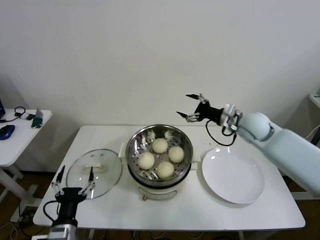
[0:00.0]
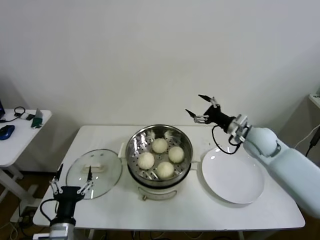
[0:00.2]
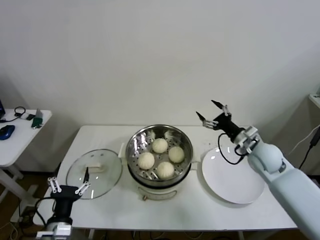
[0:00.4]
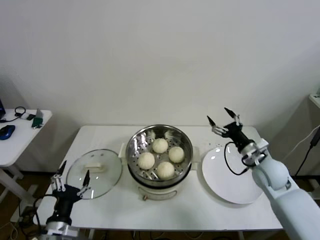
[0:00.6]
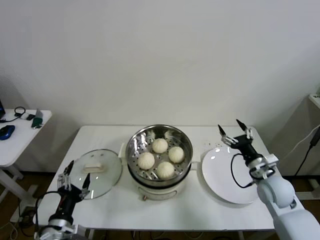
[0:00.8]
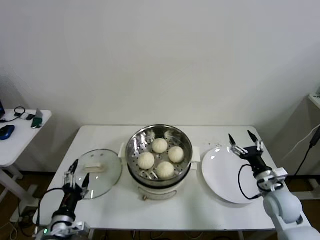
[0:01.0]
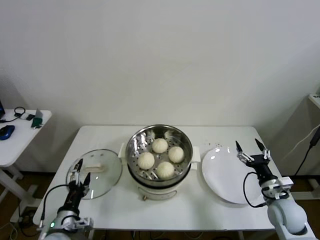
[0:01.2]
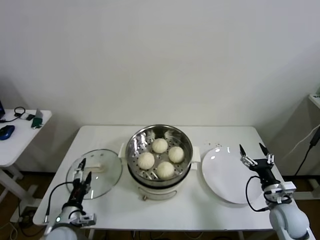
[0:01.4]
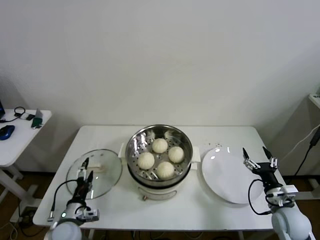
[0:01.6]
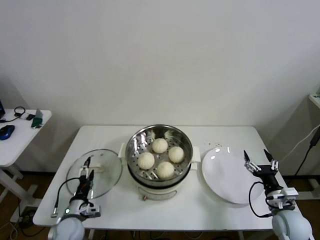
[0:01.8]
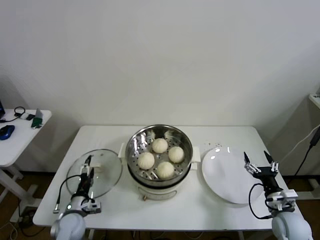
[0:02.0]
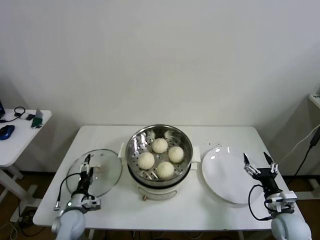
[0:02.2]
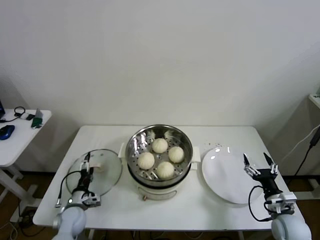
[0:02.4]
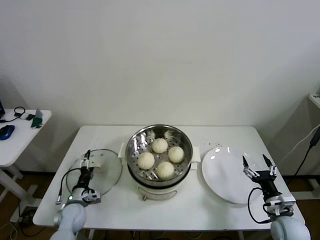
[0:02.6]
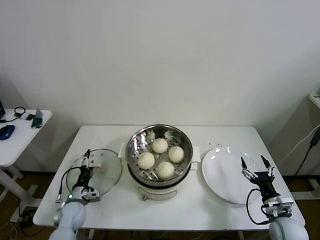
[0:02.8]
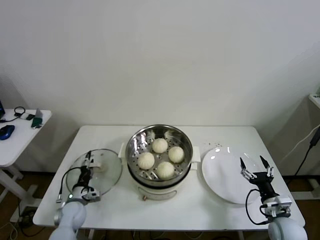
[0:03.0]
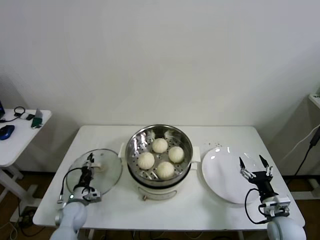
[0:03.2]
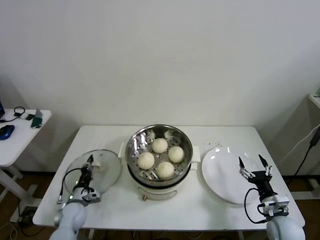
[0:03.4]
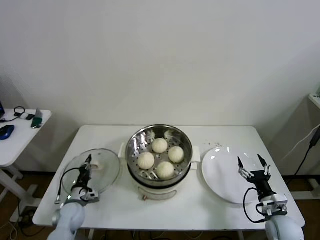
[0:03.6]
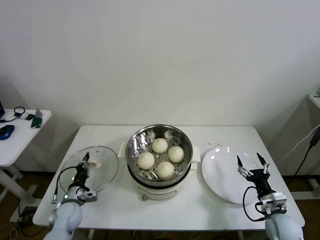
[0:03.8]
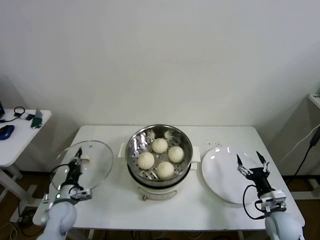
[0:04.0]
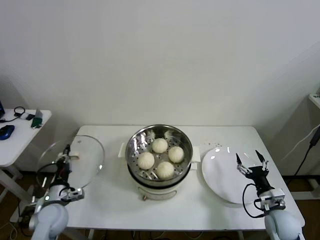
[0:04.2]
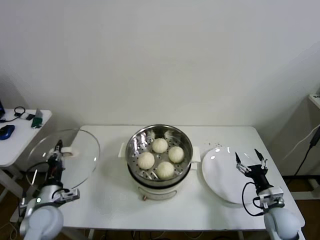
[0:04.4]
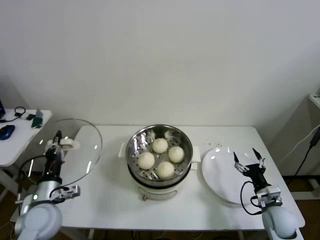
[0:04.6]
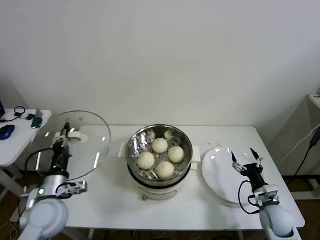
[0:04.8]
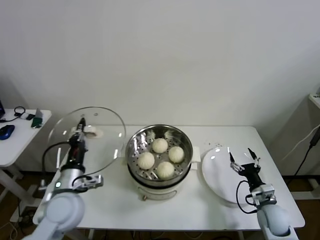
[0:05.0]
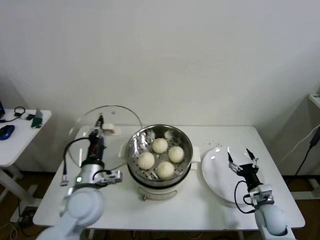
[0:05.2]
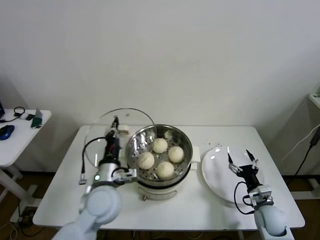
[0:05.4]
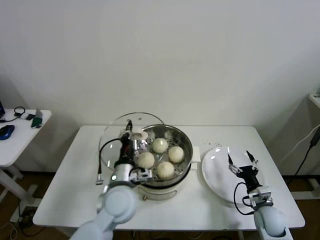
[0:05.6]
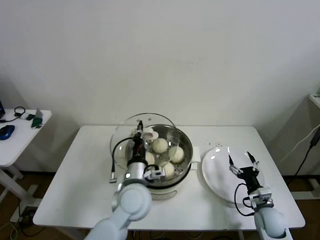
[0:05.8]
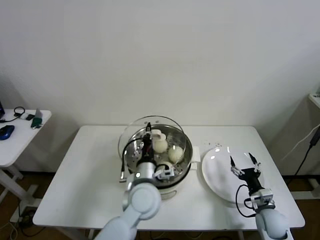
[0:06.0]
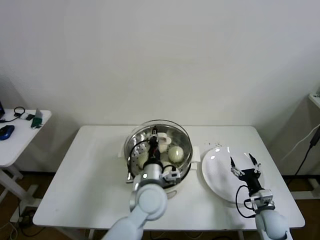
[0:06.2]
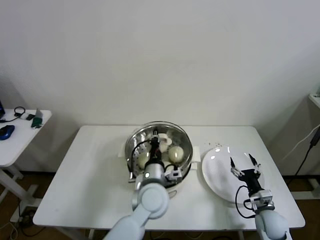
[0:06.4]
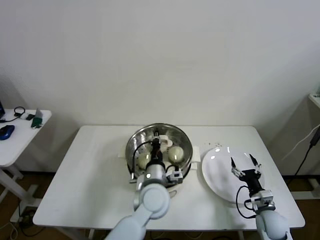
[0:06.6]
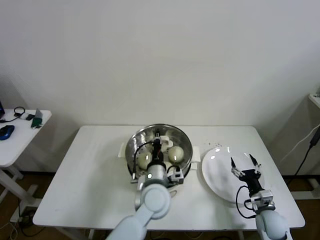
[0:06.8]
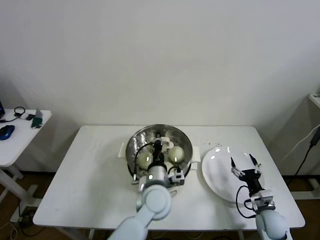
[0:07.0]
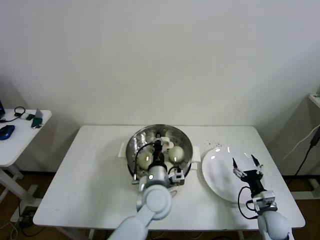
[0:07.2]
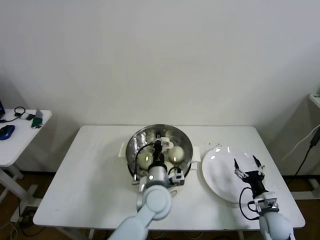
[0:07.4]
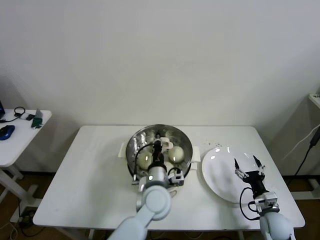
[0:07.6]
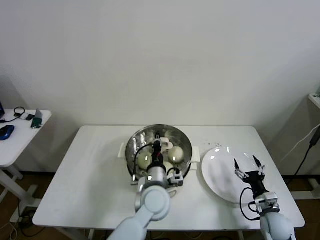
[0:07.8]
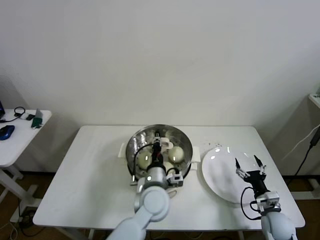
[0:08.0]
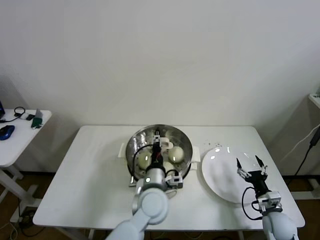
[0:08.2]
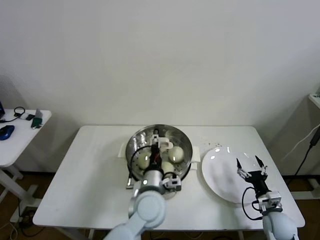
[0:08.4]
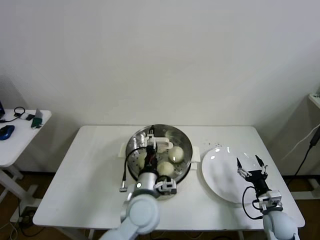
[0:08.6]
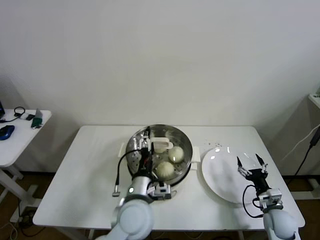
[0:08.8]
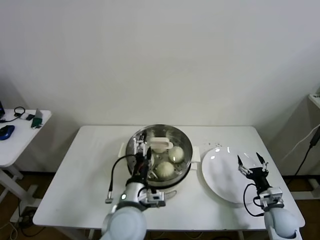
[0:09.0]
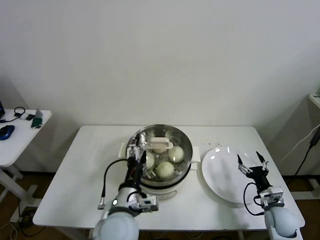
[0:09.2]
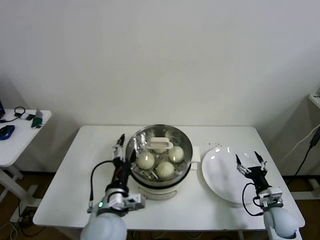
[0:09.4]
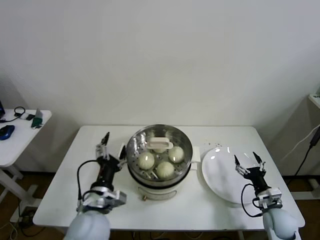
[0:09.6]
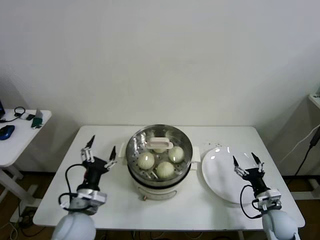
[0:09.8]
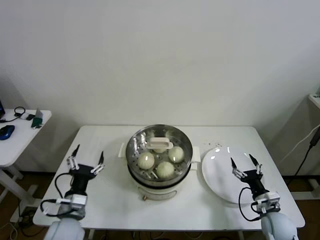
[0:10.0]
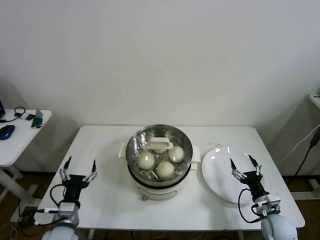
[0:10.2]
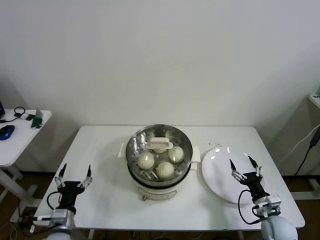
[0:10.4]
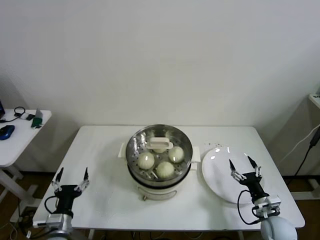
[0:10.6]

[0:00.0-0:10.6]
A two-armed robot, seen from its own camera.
Step, 0:00.0 to 0:03.4: Grasp the pot lid with left gripper.
Step, 0:03.6 to 0:07.8: Place the pot lid on the steamer with left gripper.
0:00.0 to 0:01.6: The right gripper goes roughly 30 cm backward, downward and to the right, while the left gripper shifts some 10 cm forward and downward.
0:01.6 to 0:03.0: The left gripper is displaced forward and downward by roughly 10 cm.
0:03.0 to 0:04.6: The left gripper travels upward and backward by approximately 20 cm, and closes its fingers.
0:04.6 to 0:06.0: The left gripper travels to the right by roughly 30 cm.
0:06.0 to 0:07.6: The left gripper changes place by about 5 cm.
0:07.6 to 0:09.0: The left gripper goes about 10 cm backward and to the left, and opens its fingers.
0:09.0 to 0:10.6: The left gripper goes some 25 cm to the left and downward.

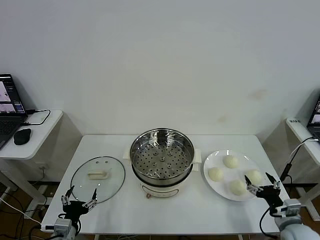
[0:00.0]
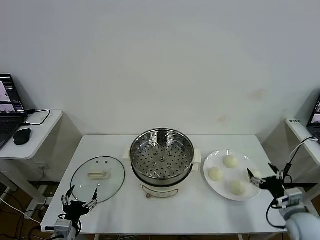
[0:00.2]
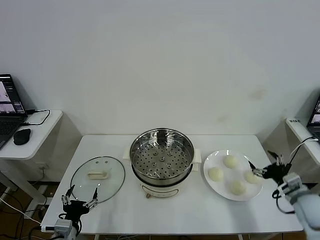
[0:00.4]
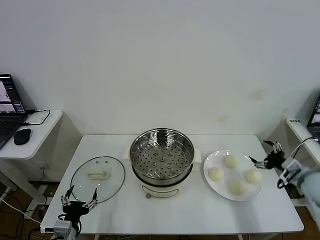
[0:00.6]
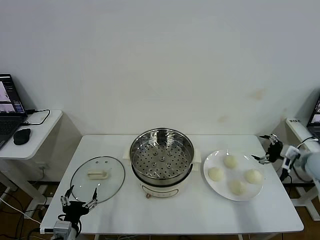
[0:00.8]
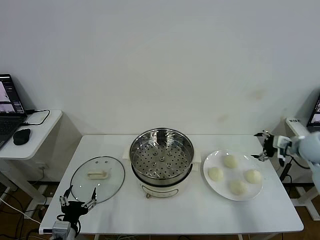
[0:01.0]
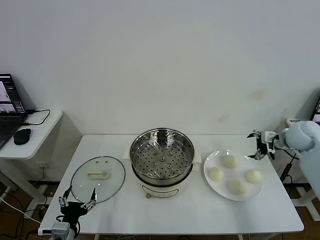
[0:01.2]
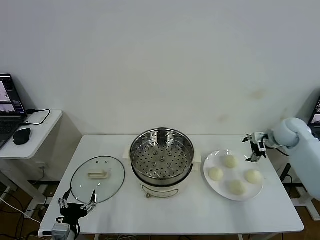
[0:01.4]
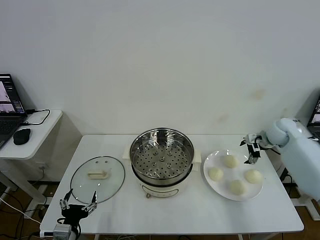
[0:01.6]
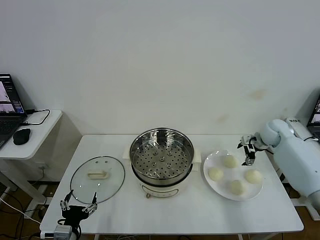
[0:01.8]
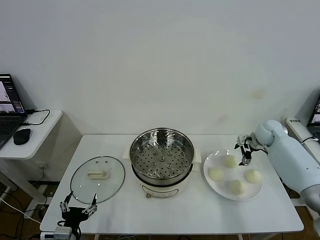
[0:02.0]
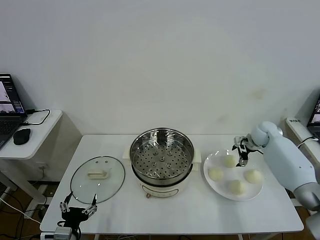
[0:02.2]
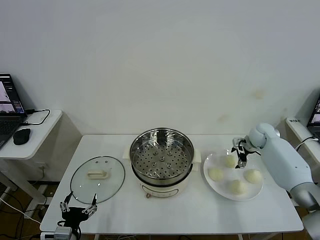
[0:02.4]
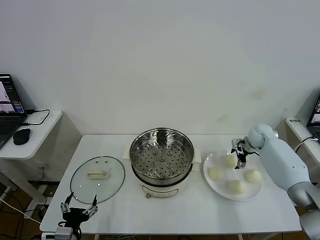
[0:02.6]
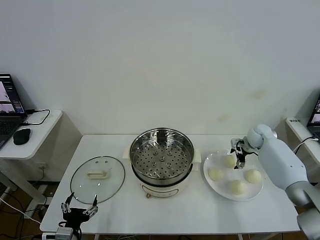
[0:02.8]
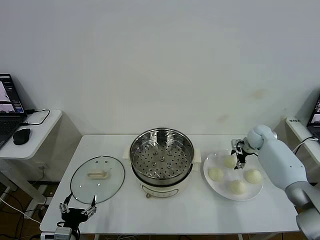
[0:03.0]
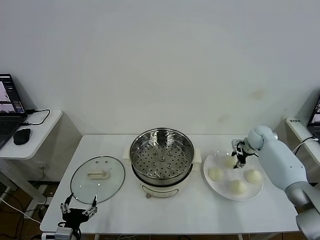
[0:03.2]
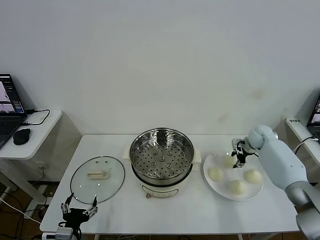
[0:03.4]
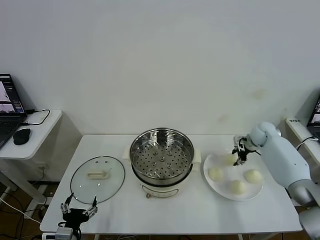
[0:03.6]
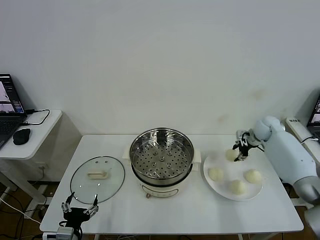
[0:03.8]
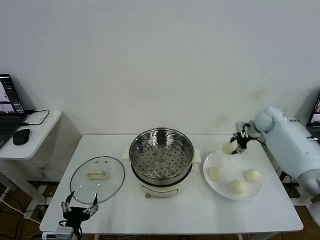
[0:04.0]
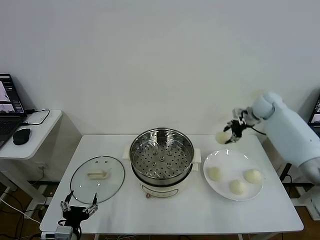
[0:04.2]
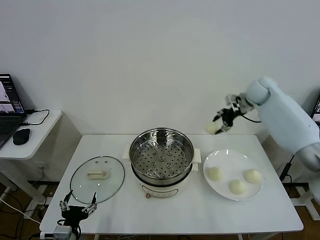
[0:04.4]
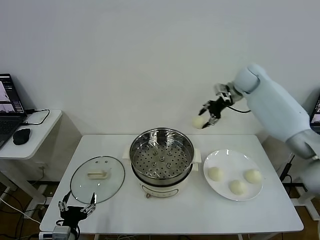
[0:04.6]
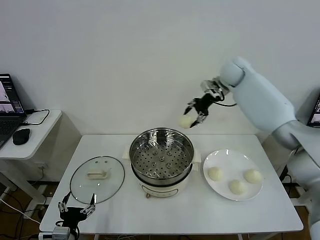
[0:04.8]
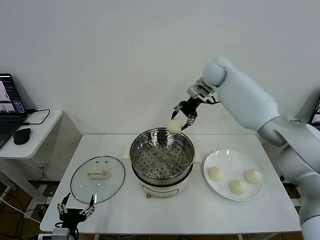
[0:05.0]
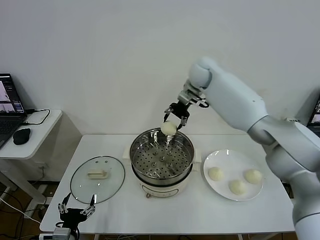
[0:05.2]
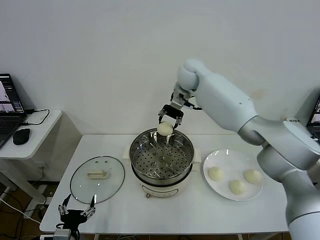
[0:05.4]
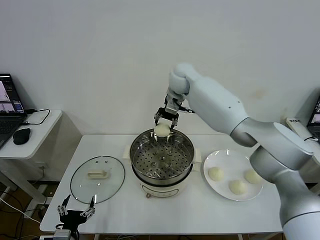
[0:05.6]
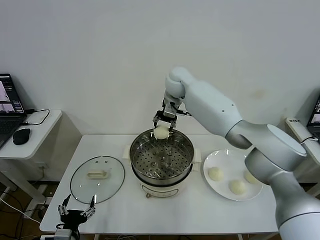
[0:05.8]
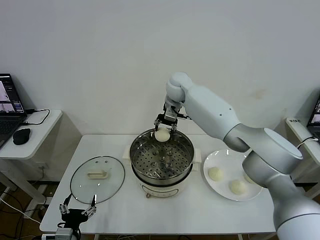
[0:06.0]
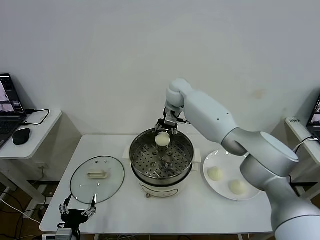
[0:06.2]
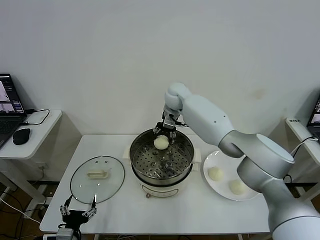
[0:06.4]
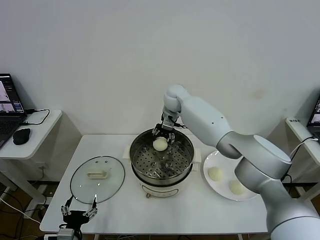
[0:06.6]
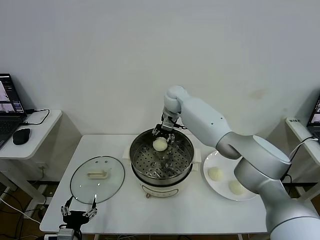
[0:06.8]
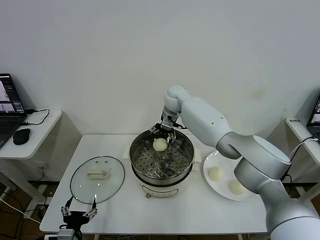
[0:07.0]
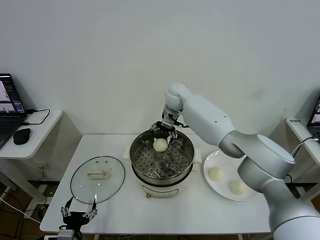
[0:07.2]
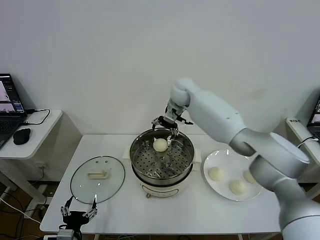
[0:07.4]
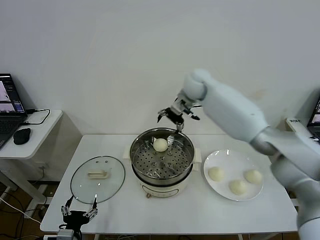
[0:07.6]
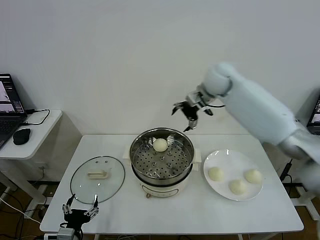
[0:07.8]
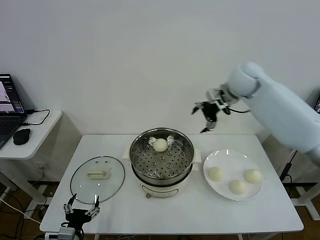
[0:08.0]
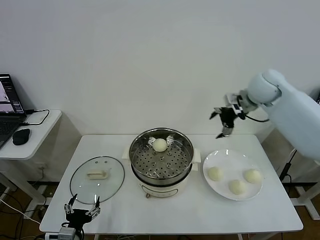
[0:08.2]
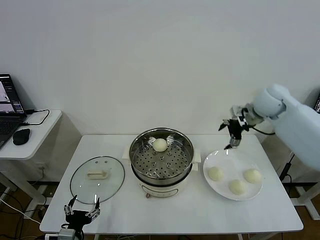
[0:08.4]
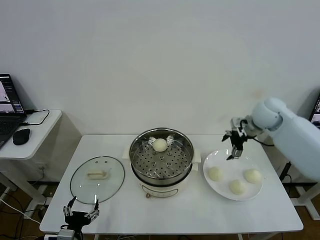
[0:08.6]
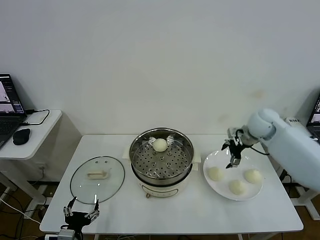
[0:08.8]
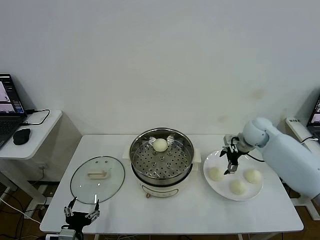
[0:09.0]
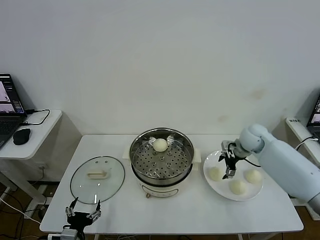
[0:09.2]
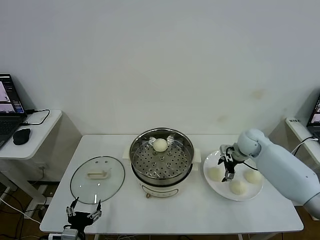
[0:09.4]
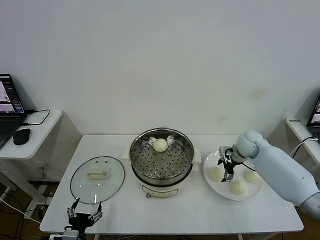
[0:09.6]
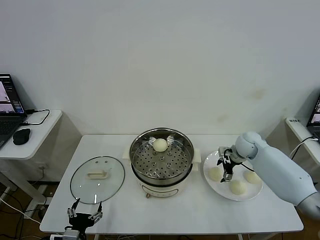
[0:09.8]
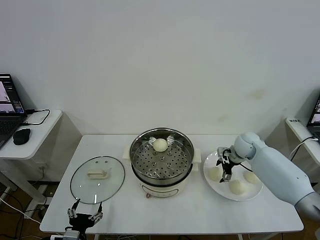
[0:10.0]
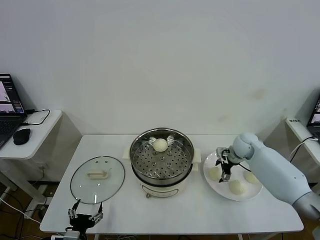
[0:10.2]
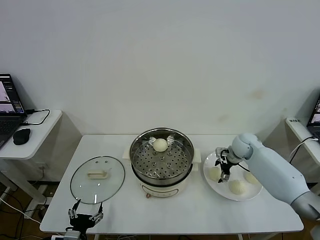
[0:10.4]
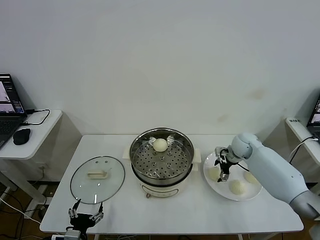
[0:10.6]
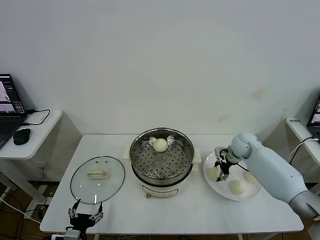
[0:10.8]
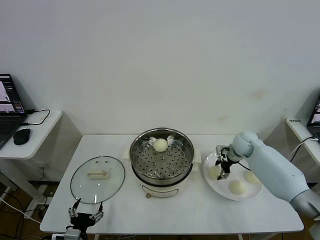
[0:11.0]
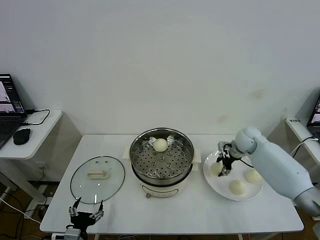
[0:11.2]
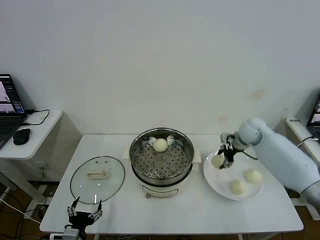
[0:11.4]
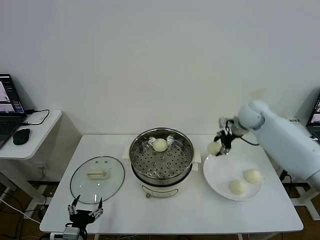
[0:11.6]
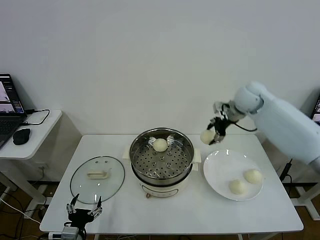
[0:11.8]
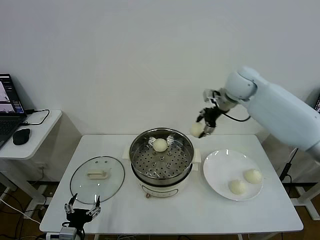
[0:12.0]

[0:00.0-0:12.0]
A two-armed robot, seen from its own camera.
Step, 0:00.0 to 0:03.2: Grasp the baozi in the plate with right gripper.
Step, 0:03.4 to 0:07.2: Place the baozi on the steamer with right gripper.
Step, 0:07.4 to 0:10.8: Grasp the baozi in the plate with right gripper.
0:01.6 to 0:03.0: The right gripper heads downward, covering approximately 5 cm, and closes its fingers.
0:03.0 to 0:04.4: The right gripper goes approximately 25 cm upward and to the left.
0:04.4 to 0:06.0: The right gripper travels to the left by about 25 cm.
0:06.0 to 0:07.6: The right gripper goes roughly 10 cm to the right and upward, and opens.
0:07.6 to 0:09.0: The right gripper shifts about 25 cm to the right, downward and backward.
0:09.0 to 0:10.4: The right gripper shifts roughly 5 cm downward.
0:10.4 to 0:12.0: The right gripper goes roughly 30 cm upward and to the left, and closes.
